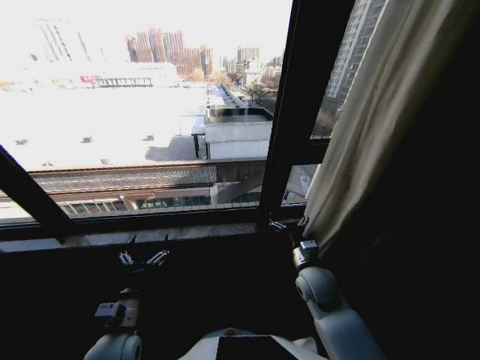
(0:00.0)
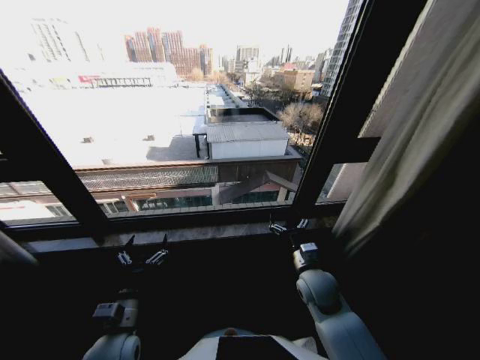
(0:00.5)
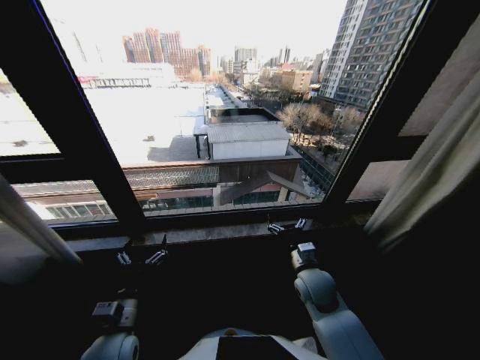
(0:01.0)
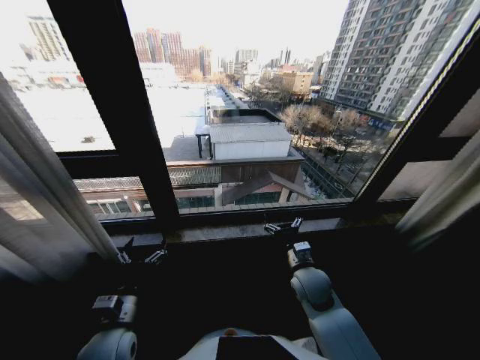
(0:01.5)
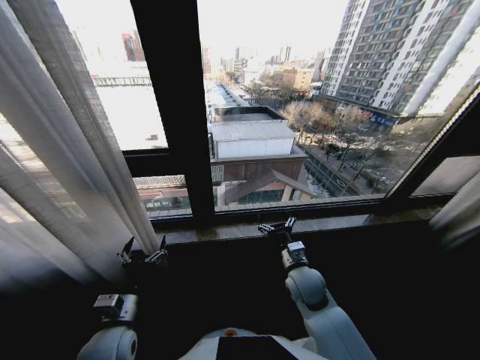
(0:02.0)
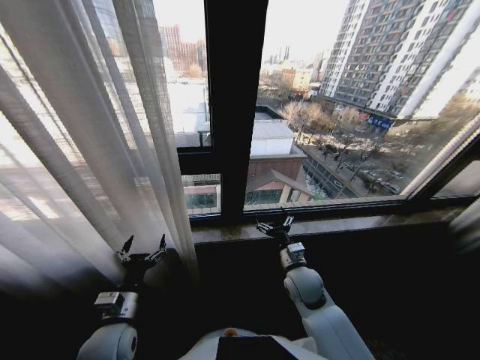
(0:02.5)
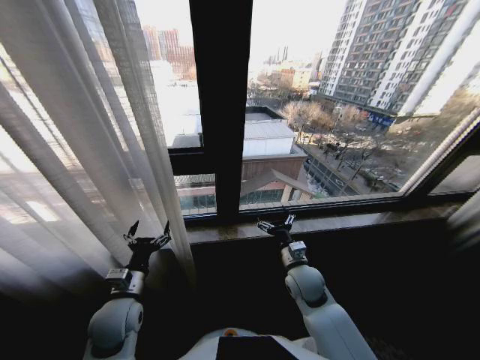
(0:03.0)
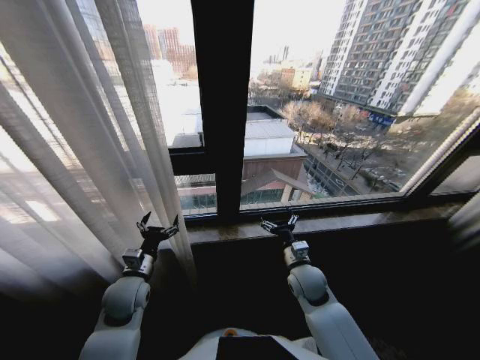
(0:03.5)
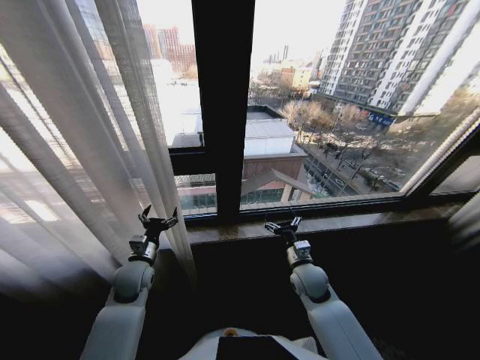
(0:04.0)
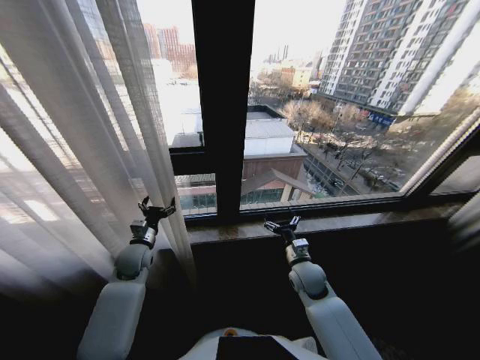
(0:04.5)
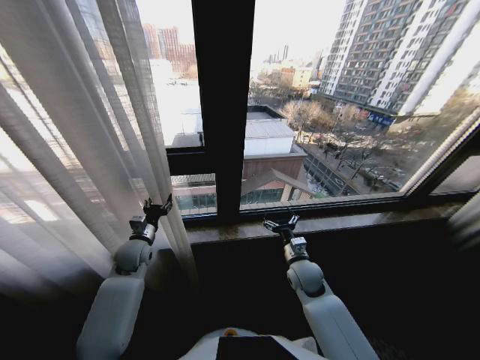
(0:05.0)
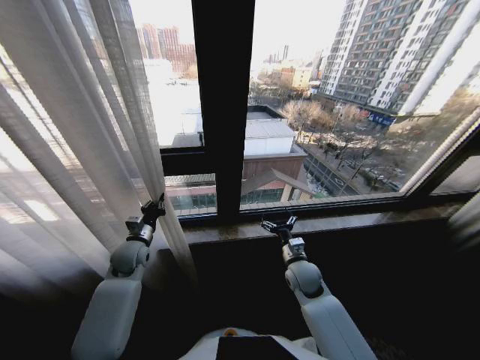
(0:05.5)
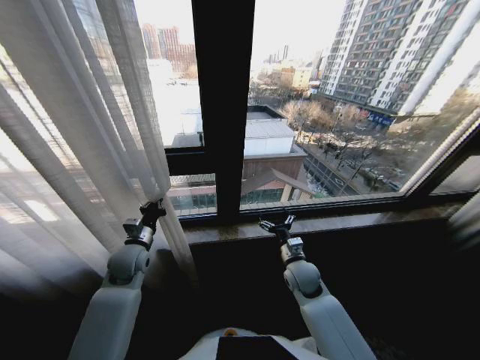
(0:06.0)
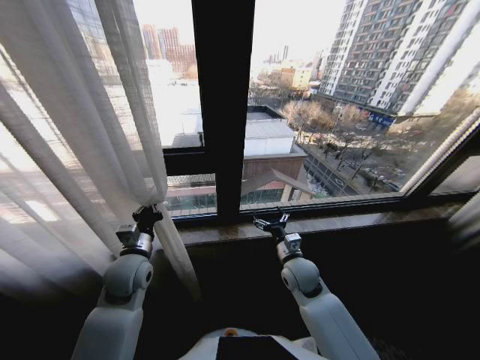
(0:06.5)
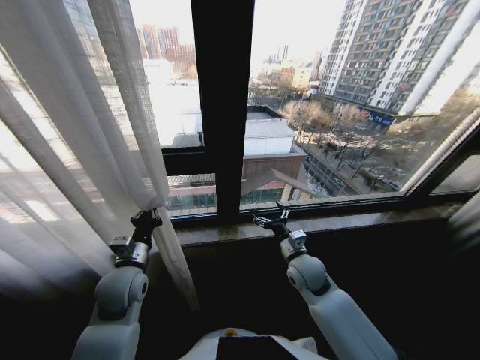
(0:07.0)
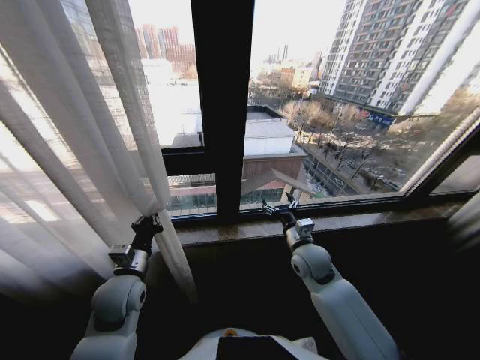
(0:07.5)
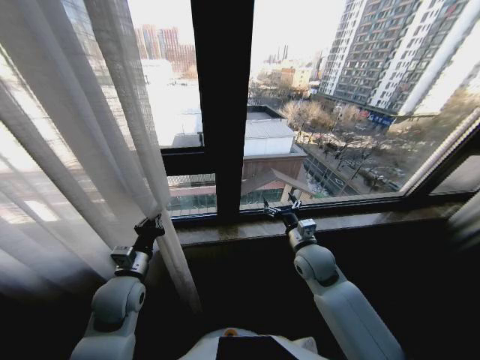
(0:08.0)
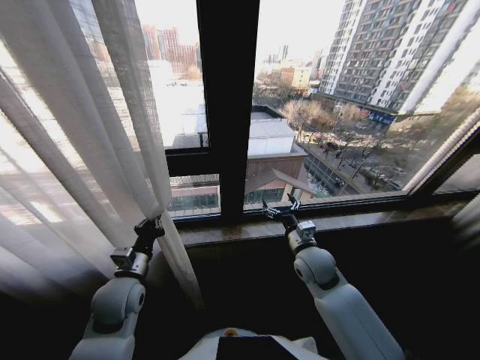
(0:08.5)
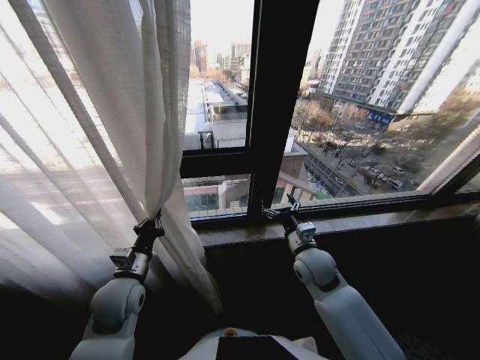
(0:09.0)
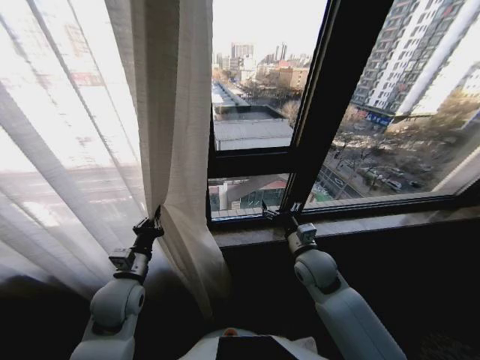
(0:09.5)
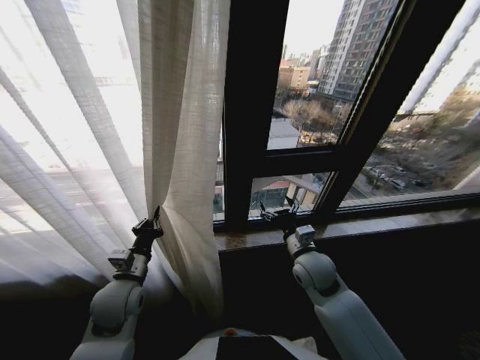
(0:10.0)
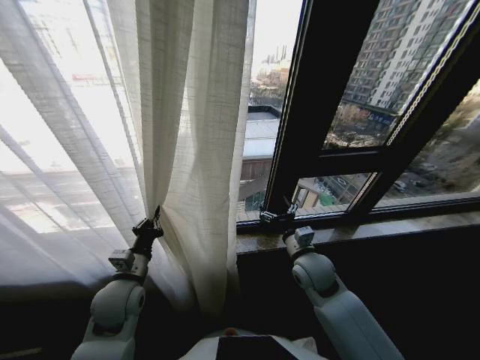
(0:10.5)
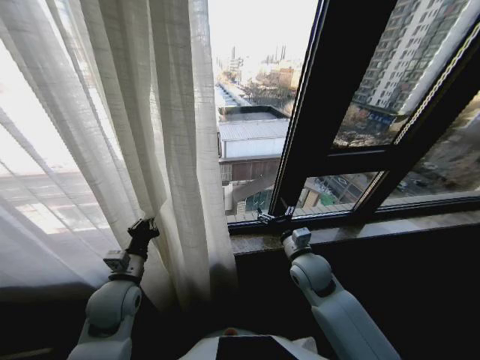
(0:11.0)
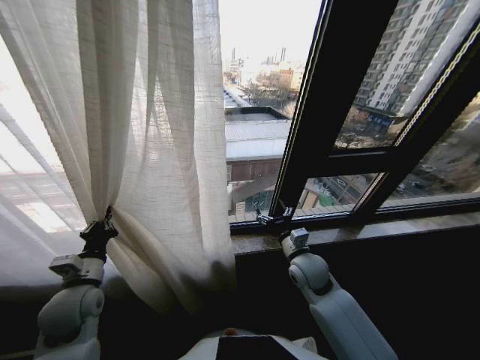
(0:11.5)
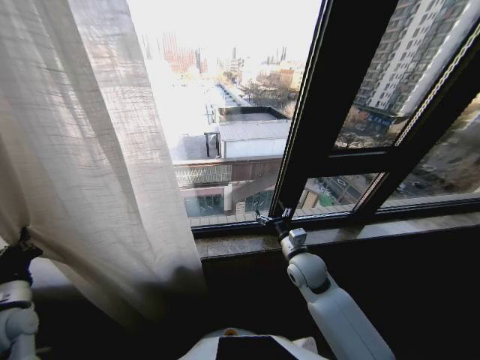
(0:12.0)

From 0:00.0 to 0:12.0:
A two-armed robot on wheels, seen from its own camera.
Task of the whole recording: Open the curtains by pulling them apart, changing their state from closed to fully open.
From 0:02.0 to 0:04.0: The left gripper travels forward by about 15 cm.
From 0:04.0 to 0:06.0: The left gripper closes its fingers.
From 0:06.0 to 0:08.0: The right gripper moves upward, some 10 cm. Meanwhile the left gripper goes about 10 cm backward.
From 0:10.0 to 0:12.0: The left gripper travels to the left by approximately 20 cm.

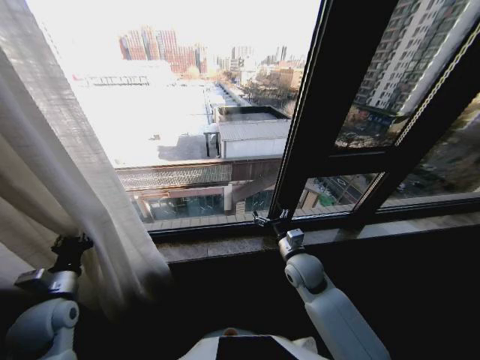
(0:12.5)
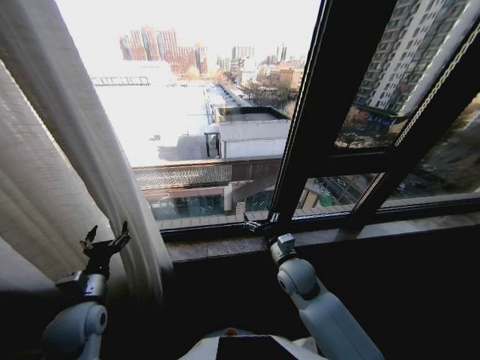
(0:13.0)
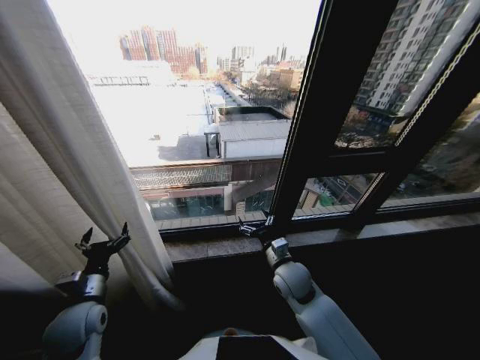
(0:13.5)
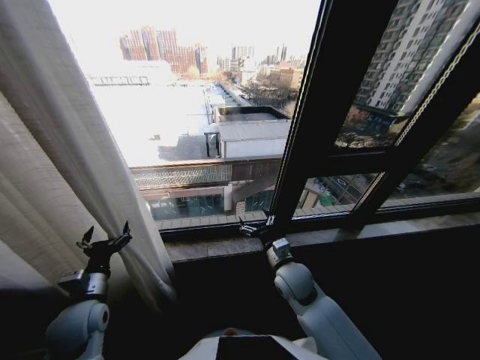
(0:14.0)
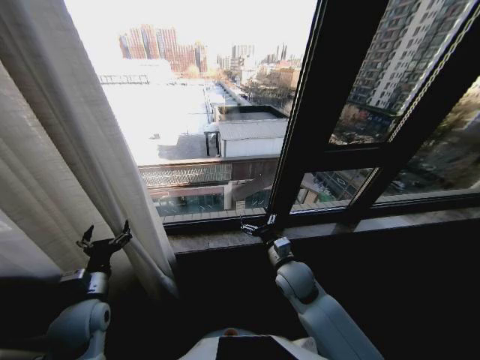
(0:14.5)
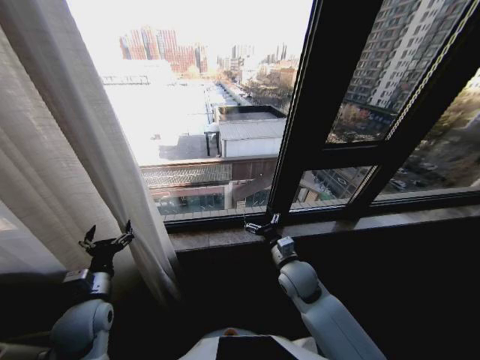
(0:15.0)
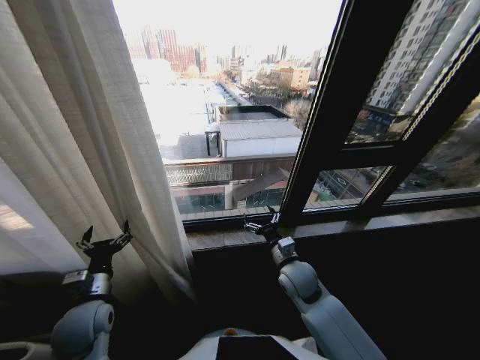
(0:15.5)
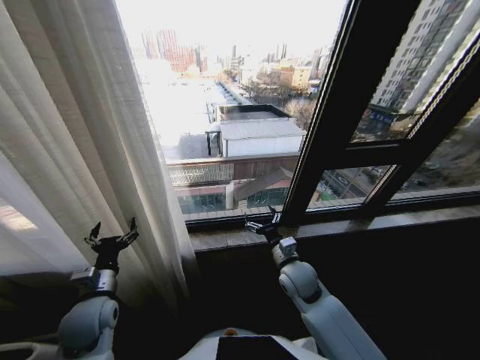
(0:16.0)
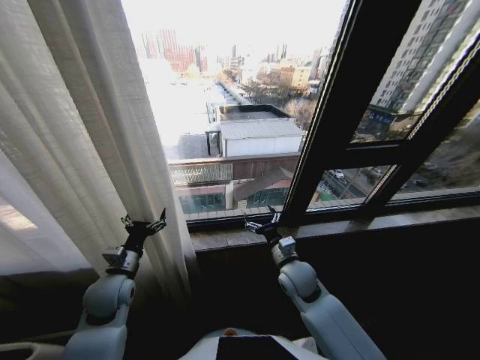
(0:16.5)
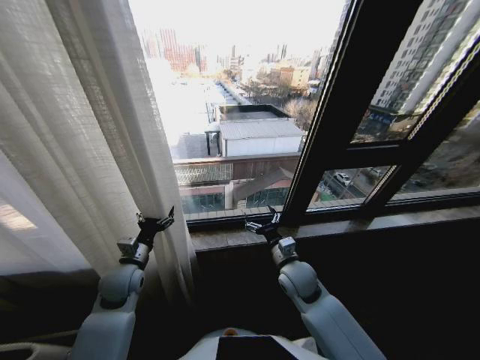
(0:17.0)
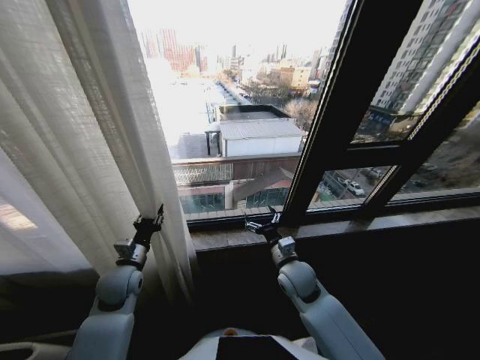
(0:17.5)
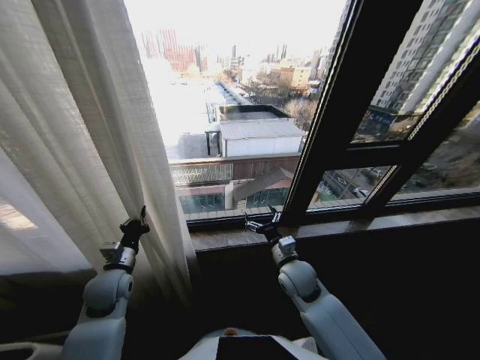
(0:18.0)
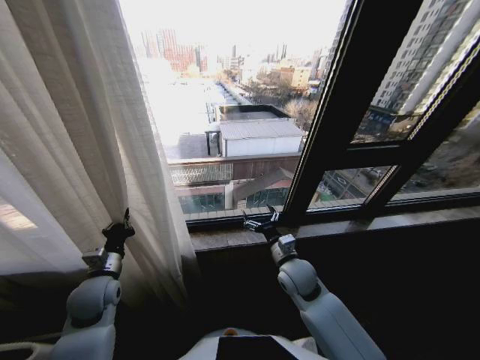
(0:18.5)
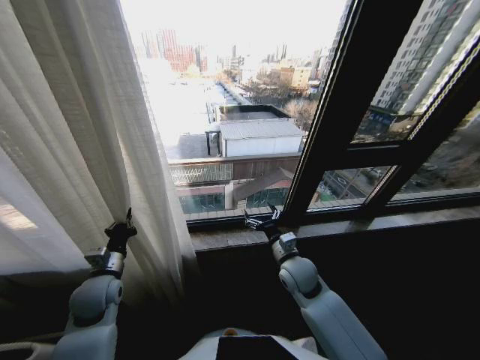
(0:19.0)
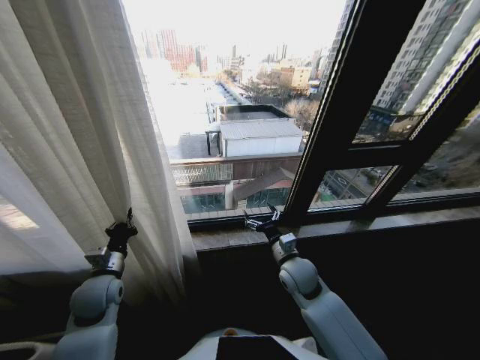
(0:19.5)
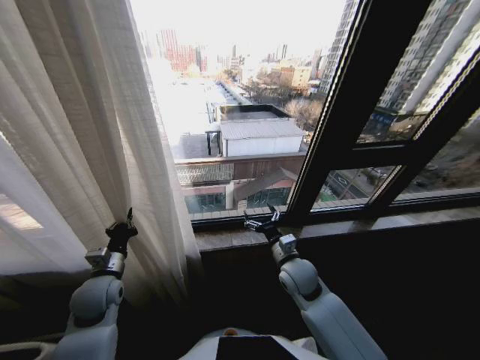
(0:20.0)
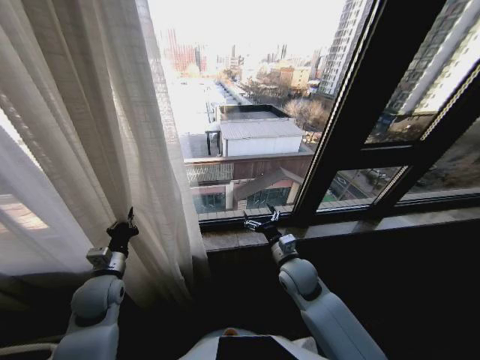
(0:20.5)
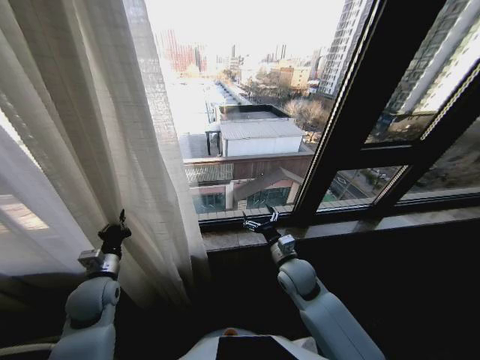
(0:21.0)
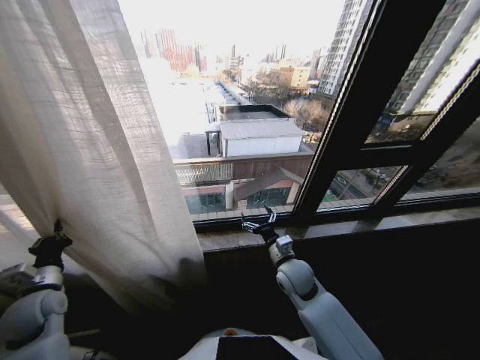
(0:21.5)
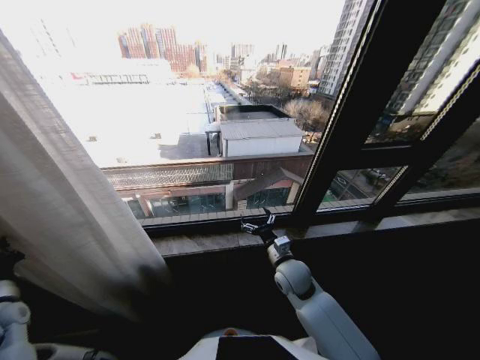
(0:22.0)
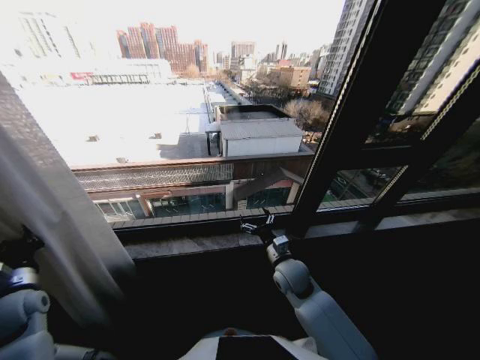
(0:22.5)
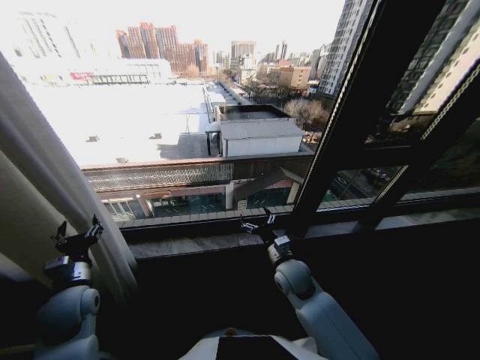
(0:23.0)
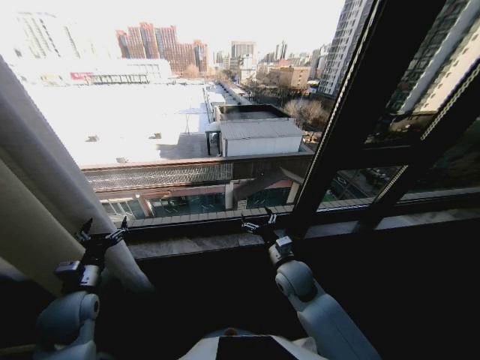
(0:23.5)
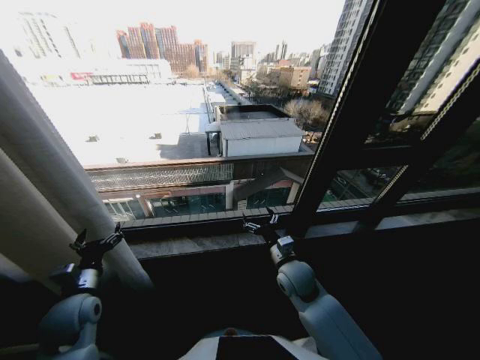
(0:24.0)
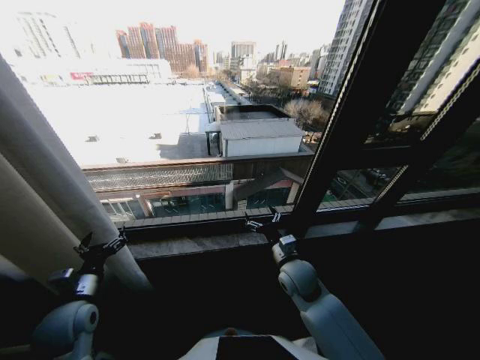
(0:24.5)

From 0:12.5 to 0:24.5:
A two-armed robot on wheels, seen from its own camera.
Task of the whole recording: Open the curtains by pulling them apart, changing their state from closed to fully open.
From 0:12.5 to 0:14.5: The left gripper goes about 5 cm to the right, and opens its fingers.
From 0:14.5 to 0:16.5: The left gripper shifts some 5 cm forward.
From 0:16.5 to 0:18.5: The left gripper closes.
From 0:20.5 to 0:22.5: The left gripper is displaced to the left by approximately 15 cm.
From 0:22.5 to 0:24.5: The left gripper shifts about 15 cm to the right, and opens its fingers.

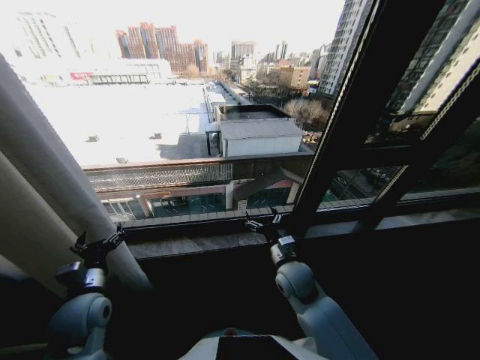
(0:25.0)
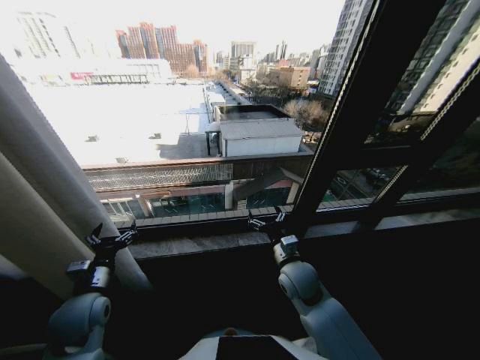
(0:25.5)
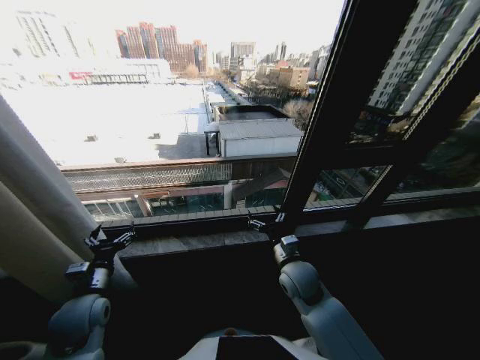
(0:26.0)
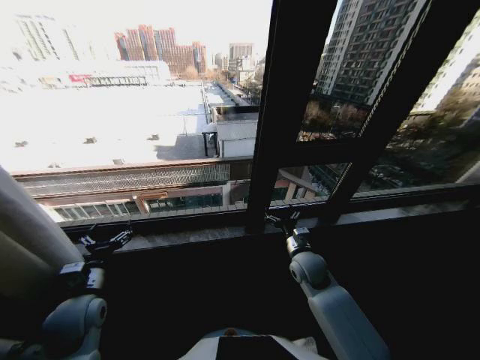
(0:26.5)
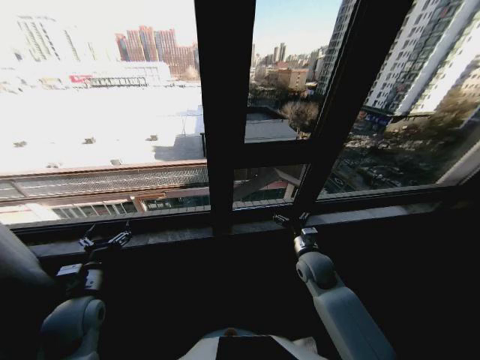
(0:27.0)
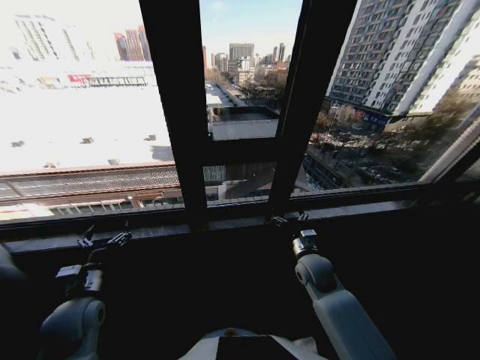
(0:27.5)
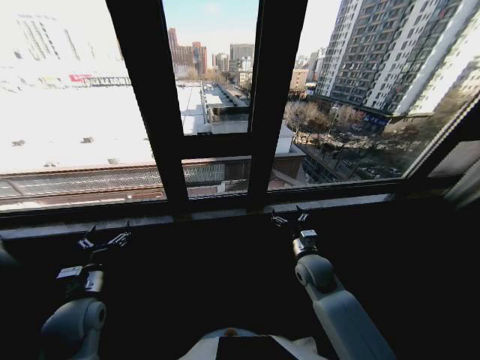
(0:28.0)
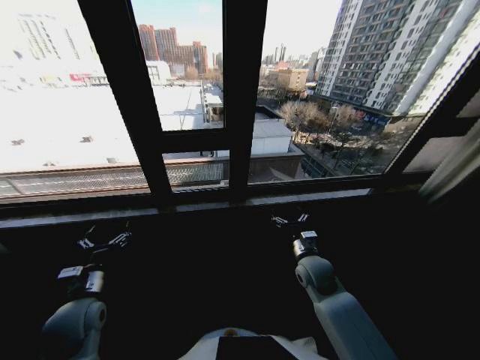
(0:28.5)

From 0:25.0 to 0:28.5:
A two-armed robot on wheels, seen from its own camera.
Task of the whole recording: Open the curtains by pulling them apart, changing their state from closed to fully open.
From 0:25.0 to 0:27.0: The right gripper travels to the right by approximately 10 cm.
